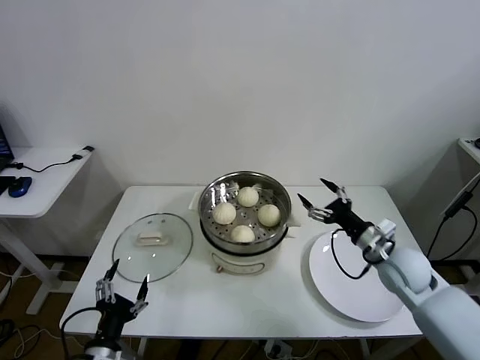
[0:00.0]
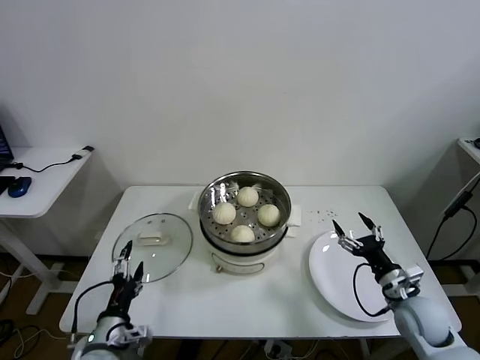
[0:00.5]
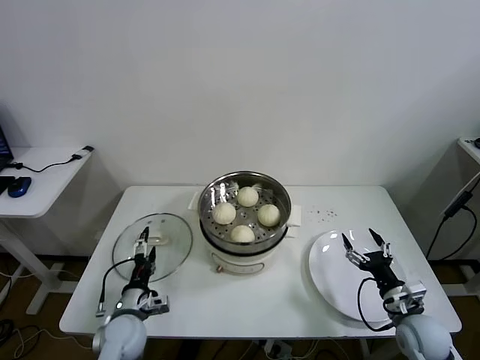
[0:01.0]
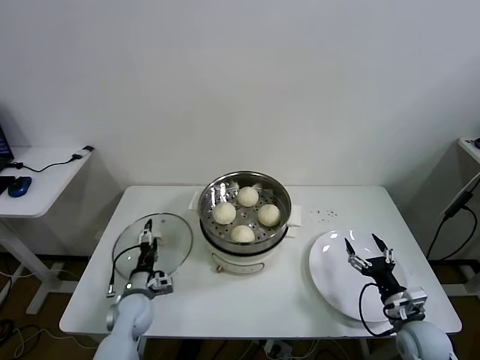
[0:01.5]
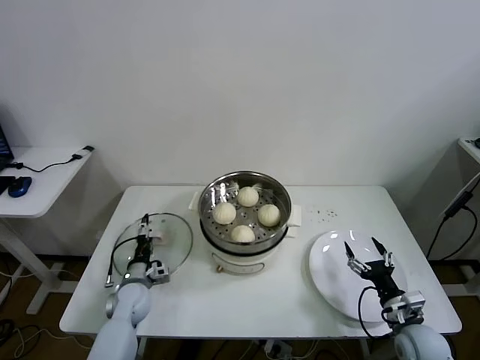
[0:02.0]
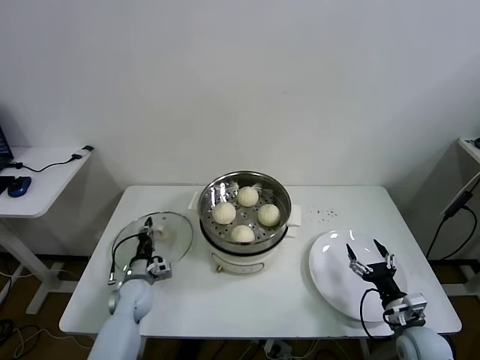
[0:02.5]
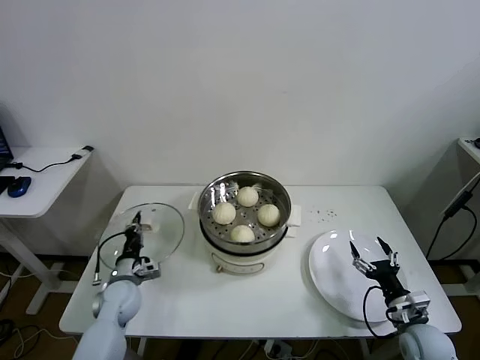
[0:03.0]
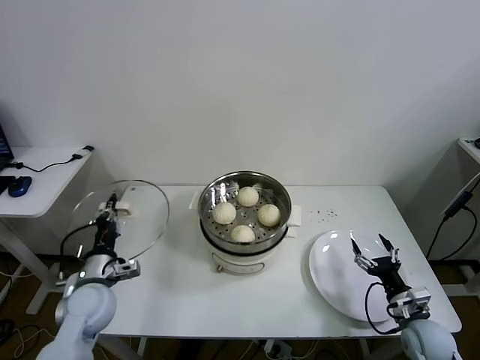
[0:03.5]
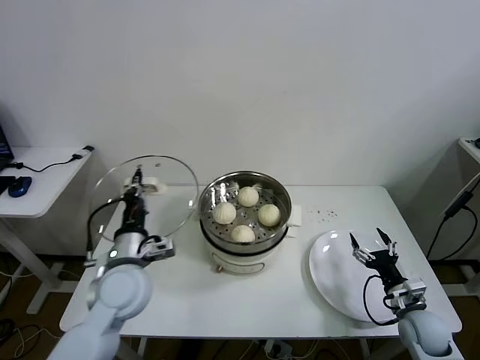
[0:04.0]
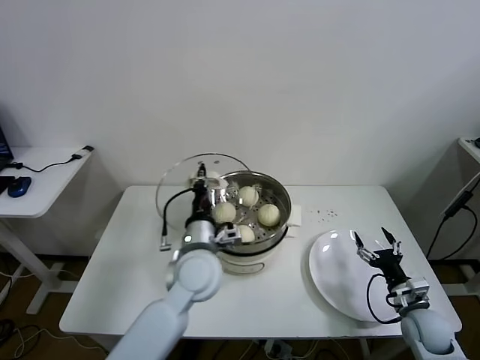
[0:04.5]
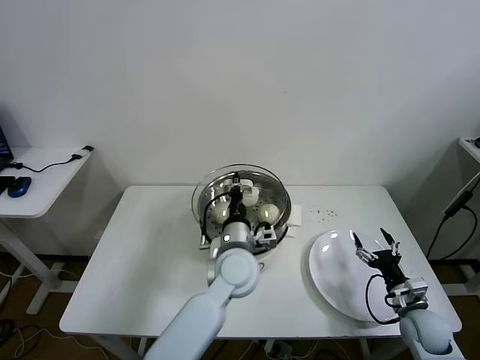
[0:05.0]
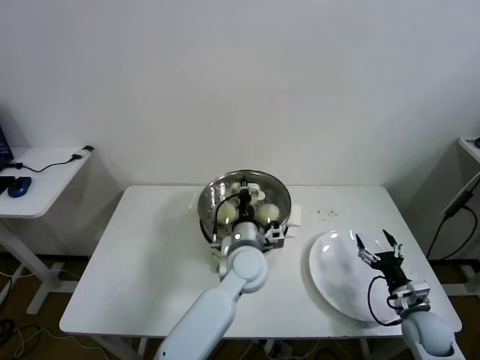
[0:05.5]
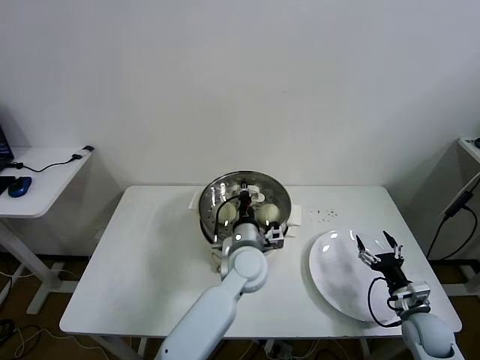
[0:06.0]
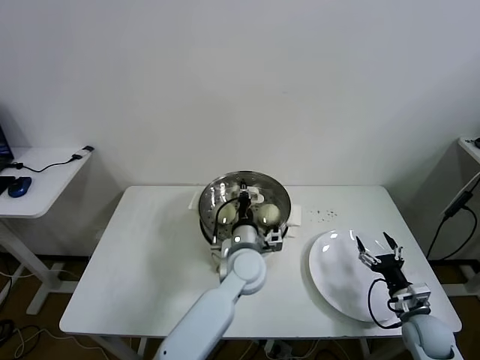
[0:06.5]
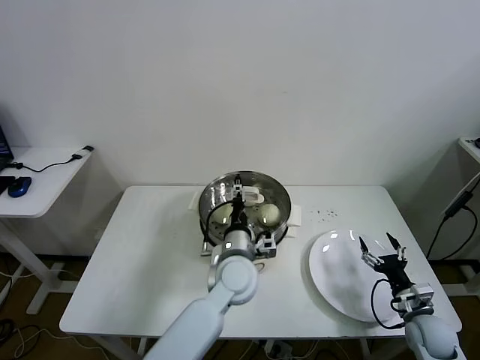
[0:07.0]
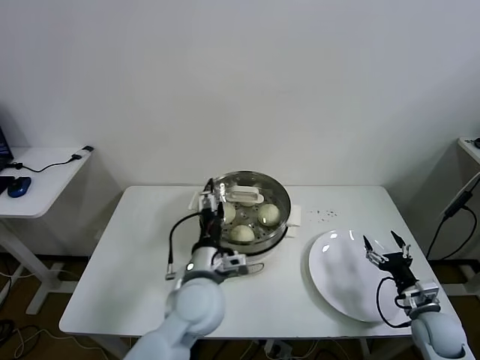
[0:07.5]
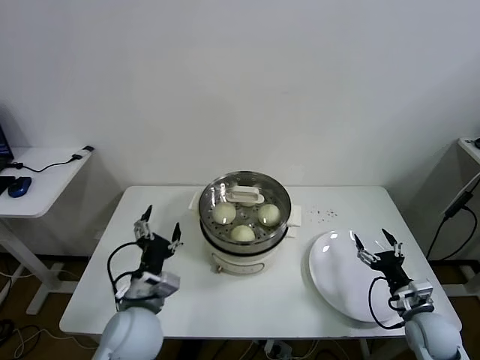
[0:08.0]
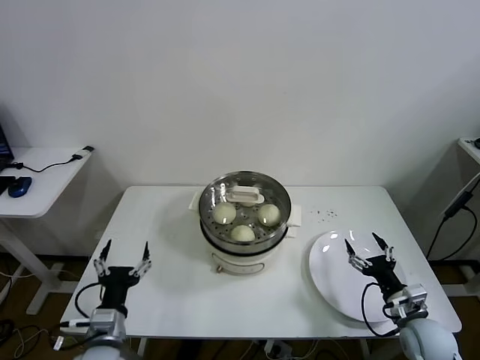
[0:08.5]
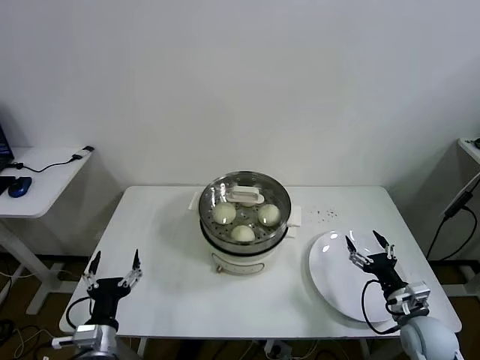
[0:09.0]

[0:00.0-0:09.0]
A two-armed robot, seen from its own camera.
Task of the whole recording: take steamed baozi put them in steamer.
Step, 0:00.0 to 0:02.5: Grasp the pot lid with left gripper.
Step, 0:03.0 to 0:07.0: Place the pot lid on the steamer with left gripper.
0:00.0 to 0:02.0: The left gripper heads forward and downward, covering roughly 25 cm. The right gripper goes roughly 15 cm downward and backward.
0:02.0 to 0:04.5: The left gripper is displaced upward and to the right by approximately 30 cm, and closes.
0:04.5 to 0:07.0: The left gripper shifts approximately 10 cm to the right and downward, and opens up.
0:07.0 to 0:09.0: The right gripper ends up some 5 cm from where it was. The left gripper shifts some 35 cm to the left and backward.
